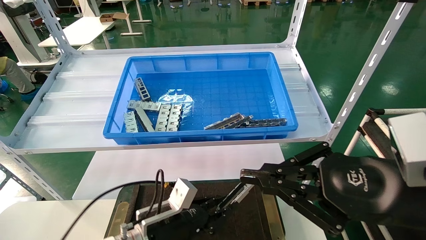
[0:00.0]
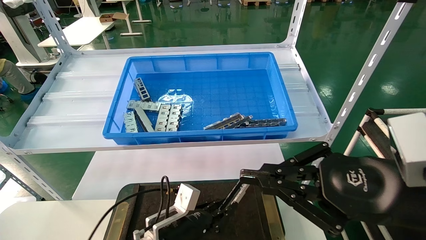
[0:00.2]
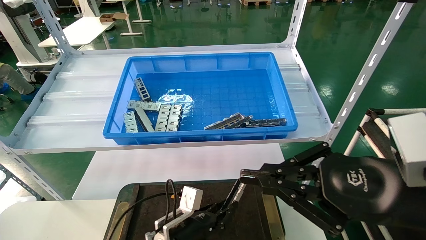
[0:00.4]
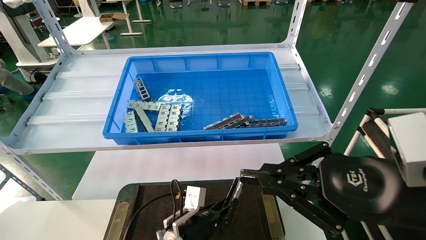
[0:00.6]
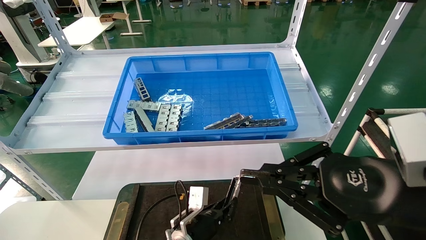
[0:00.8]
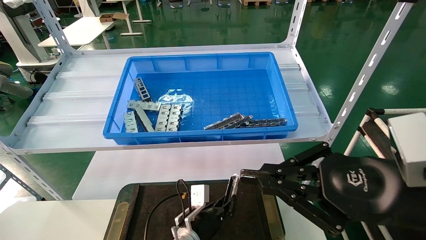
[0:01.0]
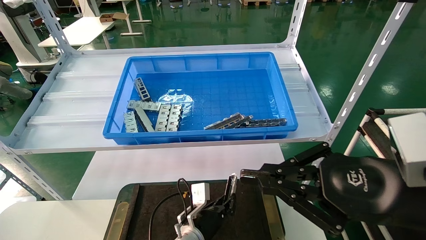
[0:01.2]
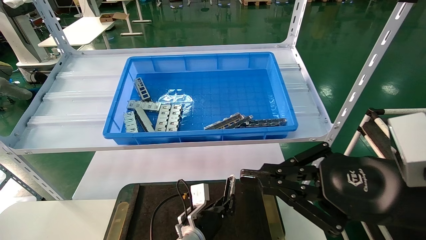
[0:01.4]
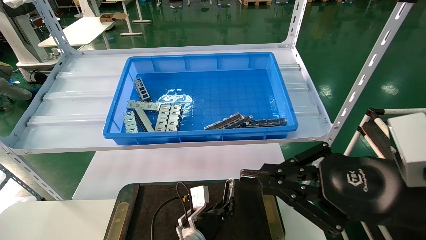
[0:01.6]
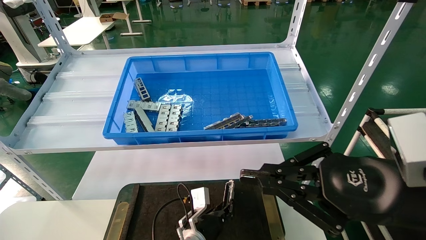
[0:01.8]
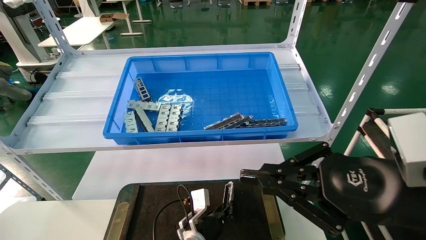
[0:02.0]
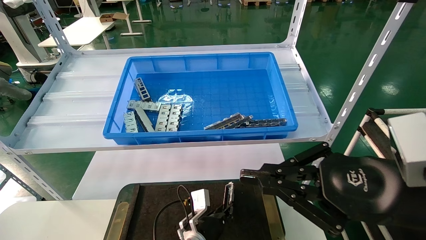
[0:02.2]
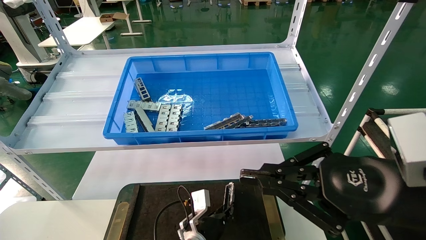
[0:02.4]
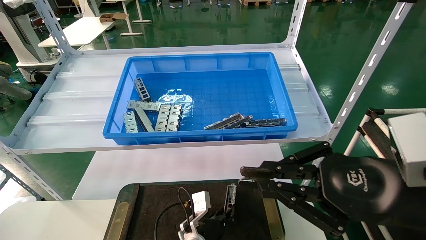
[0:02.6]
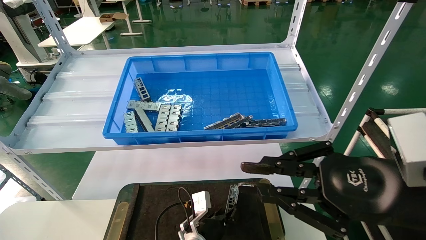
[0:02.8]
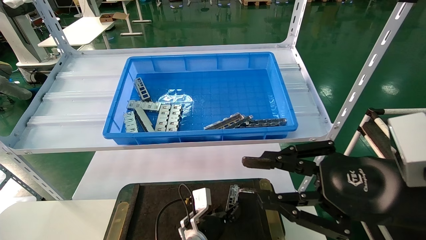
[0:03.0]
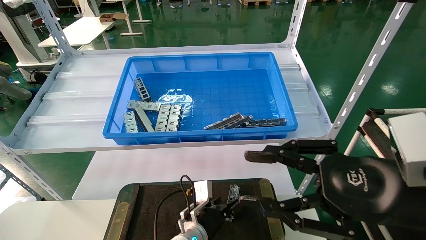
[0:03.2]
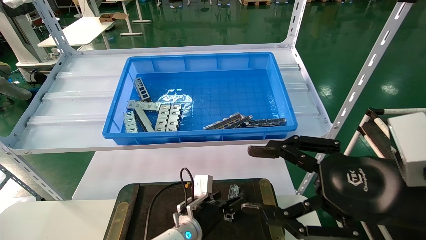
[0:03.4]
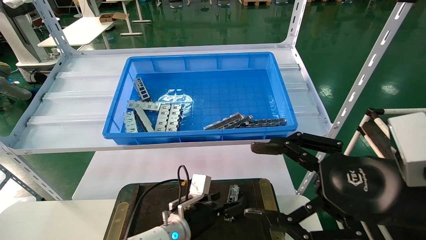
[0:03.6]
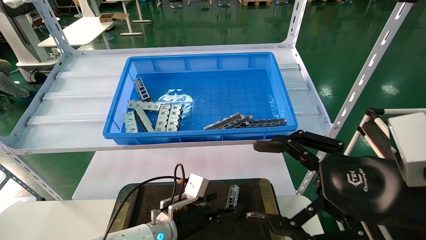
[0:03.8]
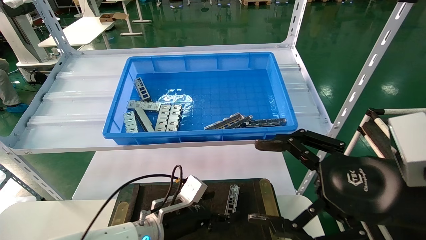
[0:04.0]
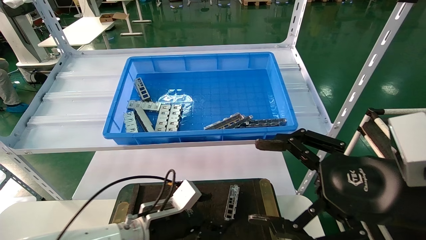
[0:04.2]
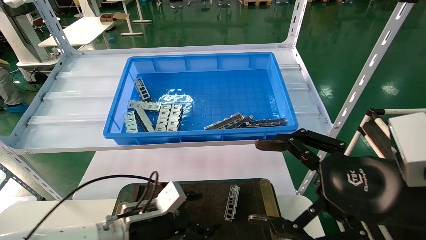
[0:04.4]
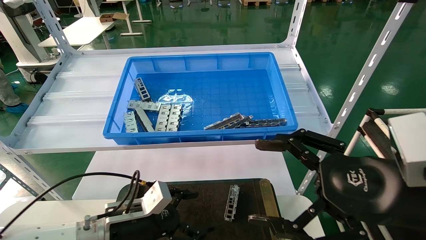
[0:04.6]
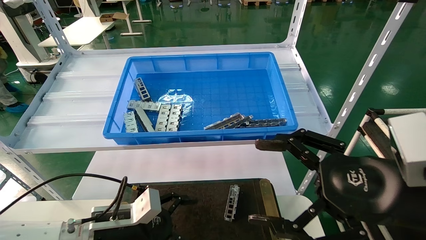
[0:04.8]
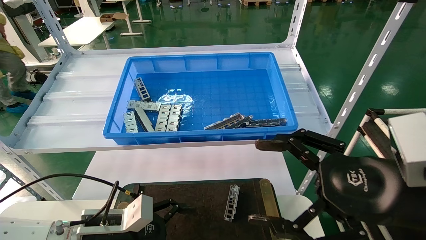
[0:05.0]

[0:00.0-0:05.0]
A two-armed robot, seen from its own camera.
Task of the whole recording: Grasp the part with one hand and place it on the black container.
Step, 0:00.0 to 0:02.6: Place the front USB bracket into the box.
0:00.0 to 0:01.6: The left gripper shifts roughly 15 cm to the right, downward and forward.
0:01.6 to 0:03.4: The left gripper opens up. Meanwhile the right gripper opens its fingers.
0:03.4 to 0:05.0: The right gripper opens its fingers. The left gripper travels to the left, backward and upward by about 20 cm.
